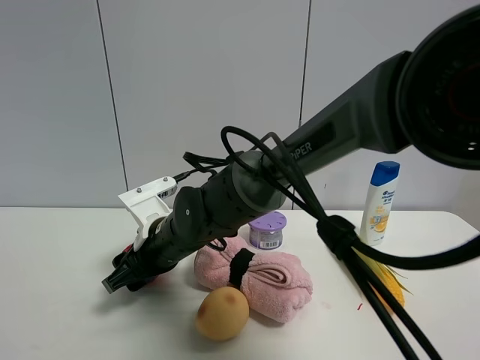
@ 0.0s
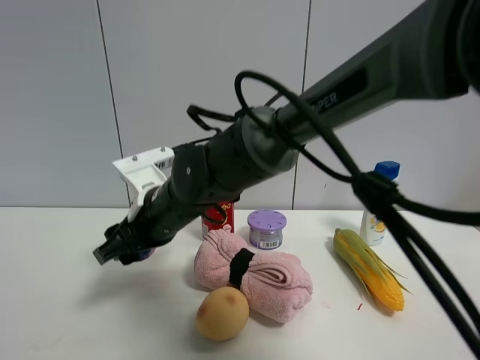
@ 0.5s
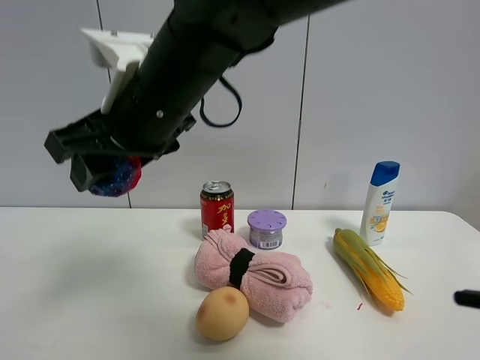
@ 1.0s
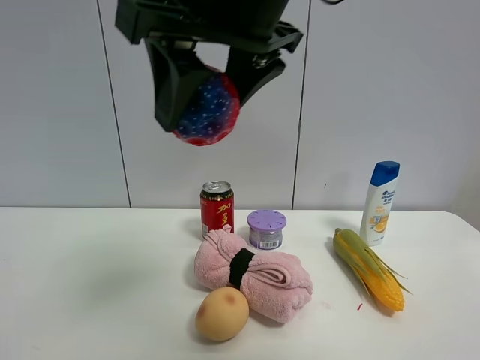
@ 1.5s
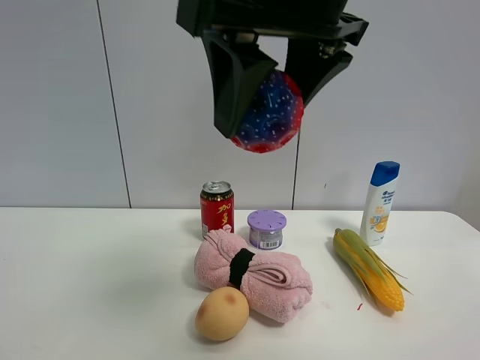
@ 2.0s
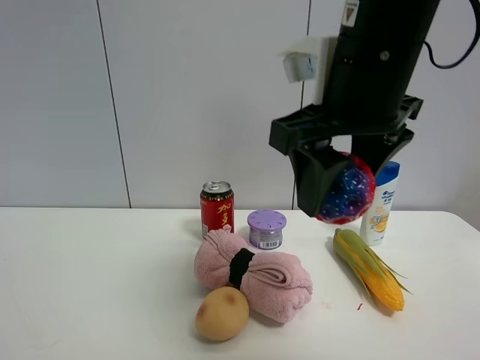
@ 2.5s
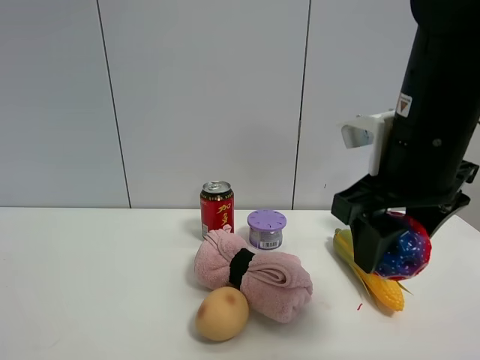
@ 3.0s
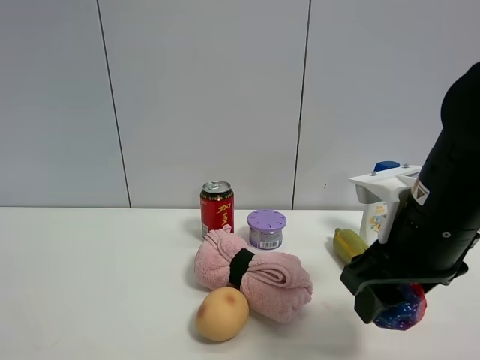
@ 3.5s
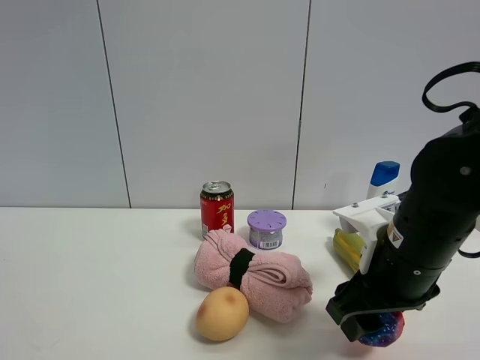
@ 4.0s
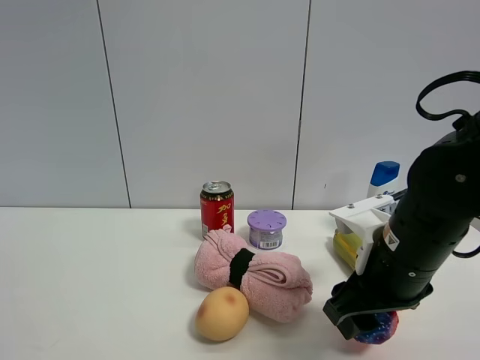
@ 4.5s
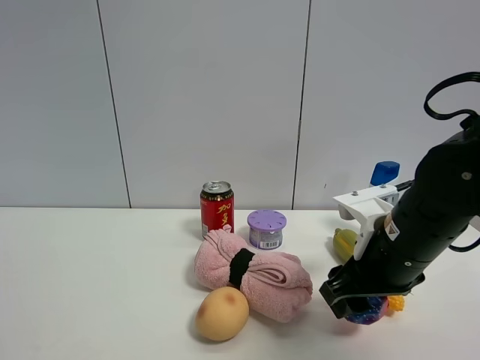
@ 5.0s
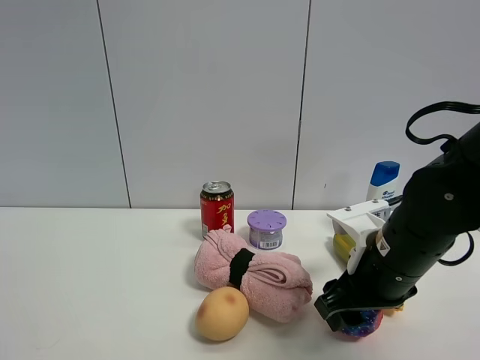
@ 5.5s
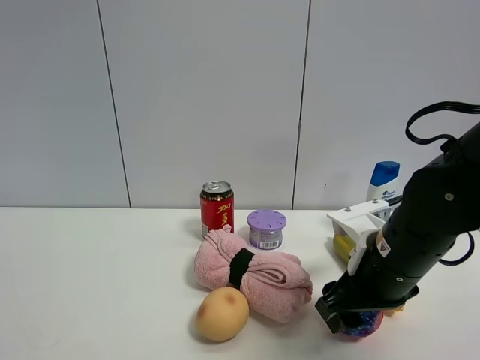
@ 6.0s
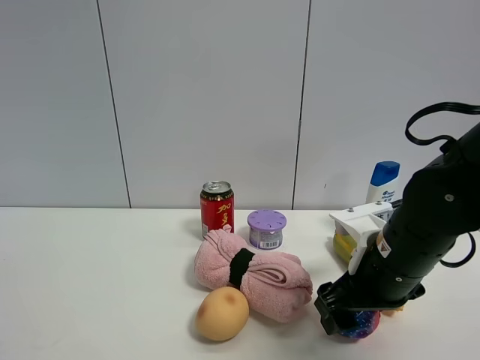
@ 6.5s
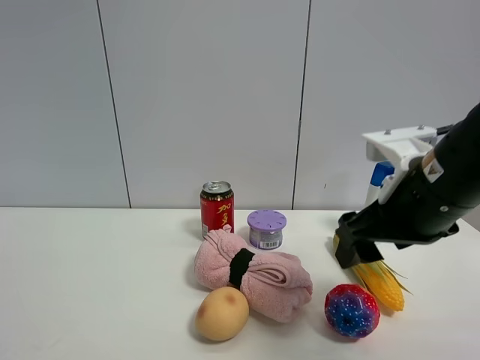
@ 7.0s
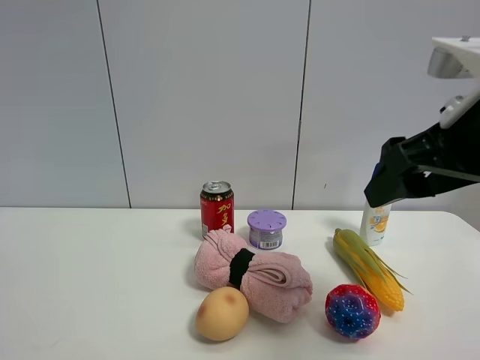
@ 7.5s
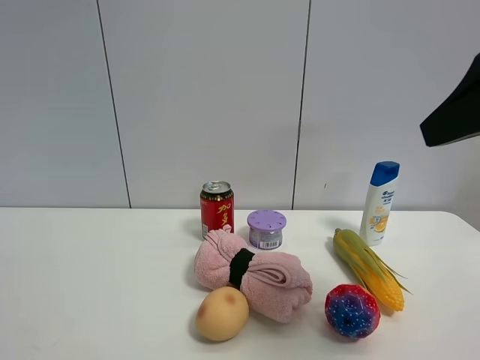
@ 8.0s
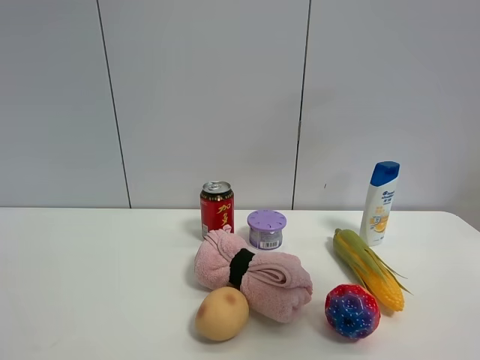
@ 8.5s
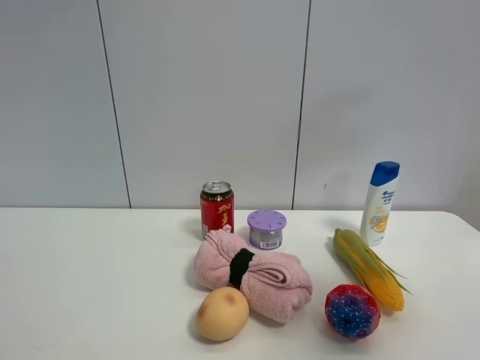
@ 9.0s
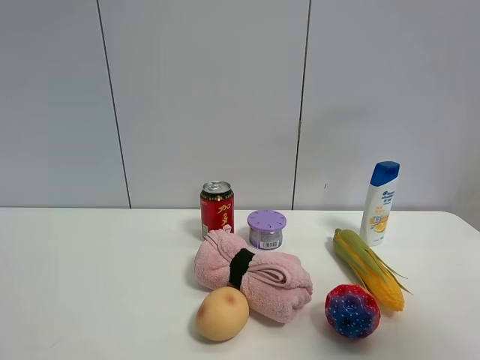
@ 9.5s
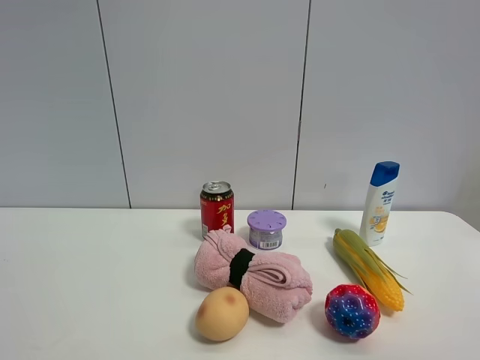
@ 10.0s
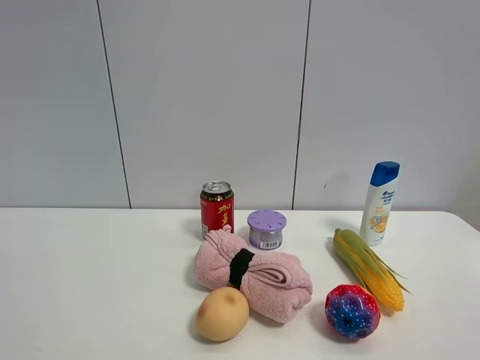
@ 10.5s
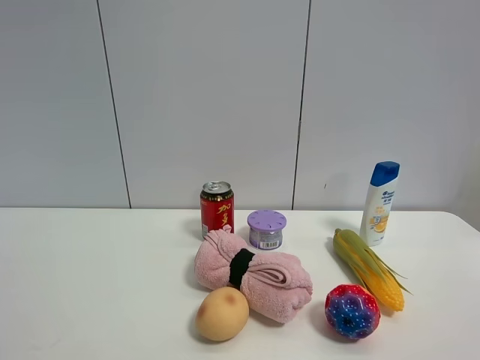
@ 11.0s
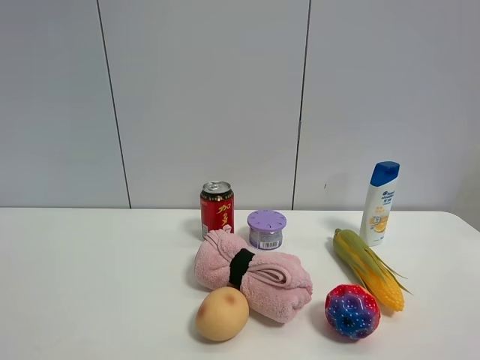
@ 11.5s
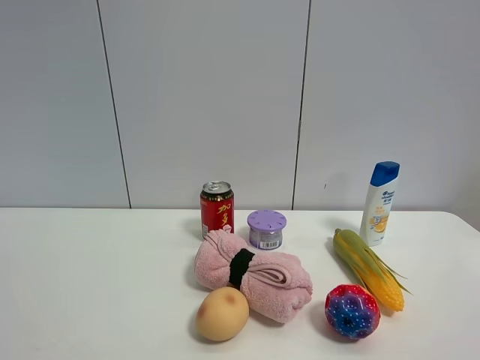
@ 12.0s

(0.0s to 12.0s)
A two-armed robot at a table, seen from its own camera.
Task of the whole recording: the gripper move the object.
Step, 0.5s - 7.0s: Place the colorful ball on the table with the right gripper.
0.0s - 2.0s: The right gripper travels upward, to the right and backward by roughly 35 cm.
2.0s - 4.0s: The right gripper goes some 25 cm downward and to the right.
4.0s - 6.0s: The grippers stay close to where they were, moving slightly.
6.0s - 8.0s: The right gripper shifts roughly 25 cm upward and backward.
8.0s - 10.0s: The right gripper travels backward and to the right by some 15 cm.

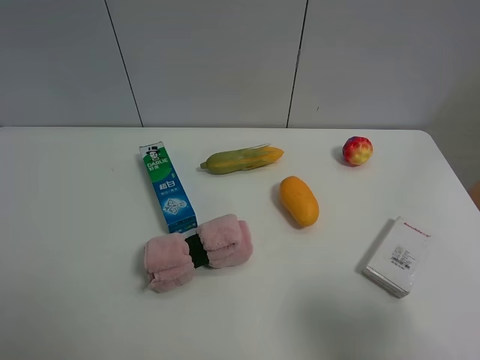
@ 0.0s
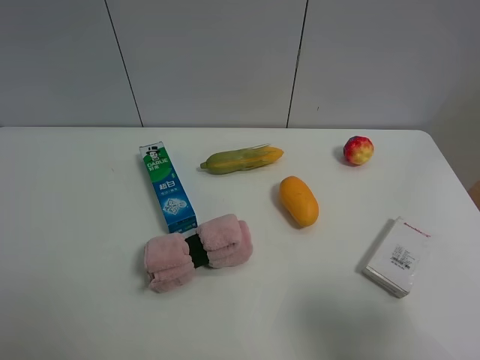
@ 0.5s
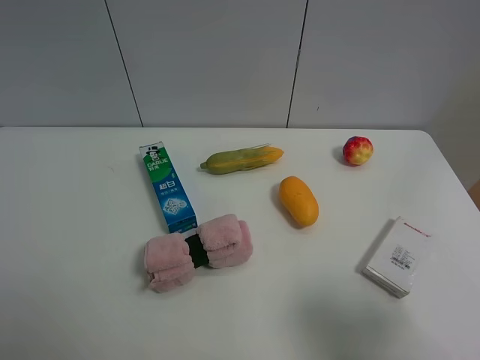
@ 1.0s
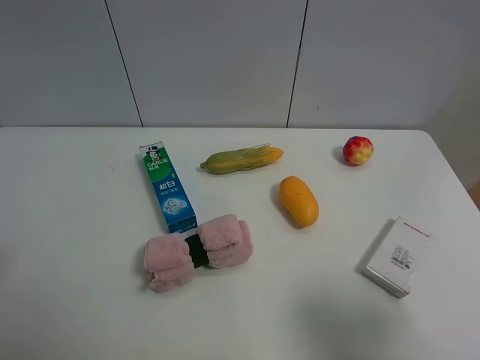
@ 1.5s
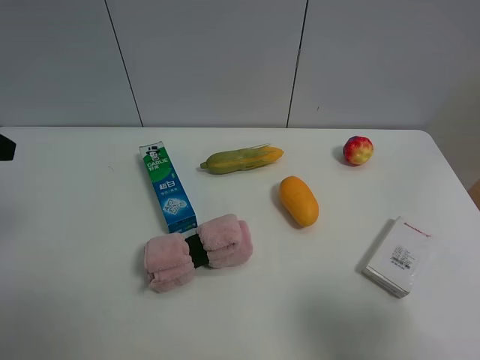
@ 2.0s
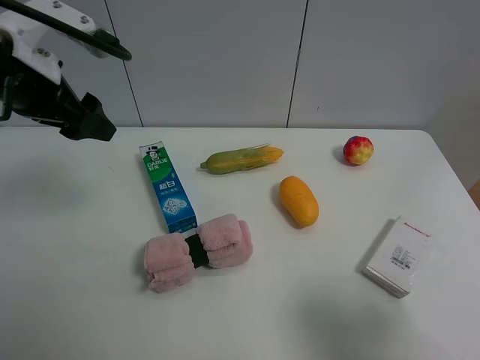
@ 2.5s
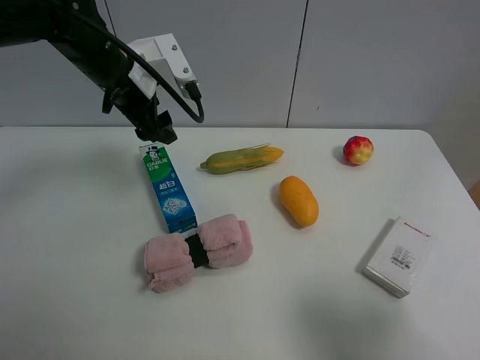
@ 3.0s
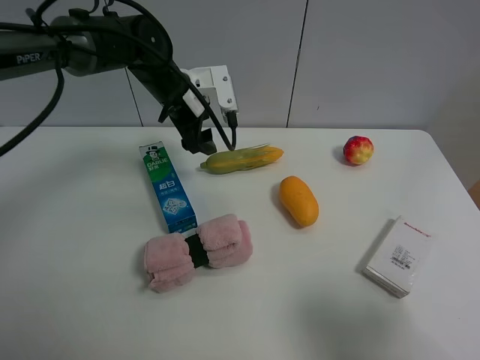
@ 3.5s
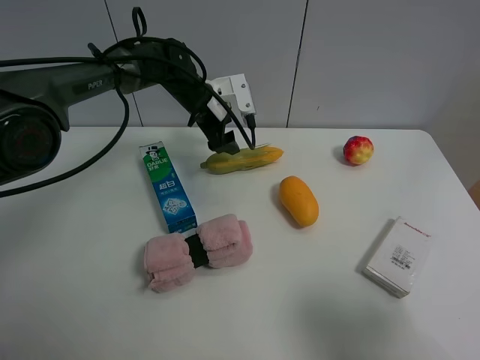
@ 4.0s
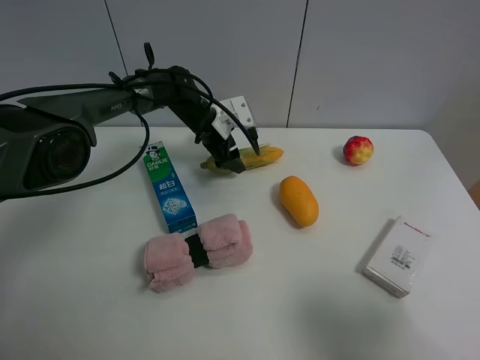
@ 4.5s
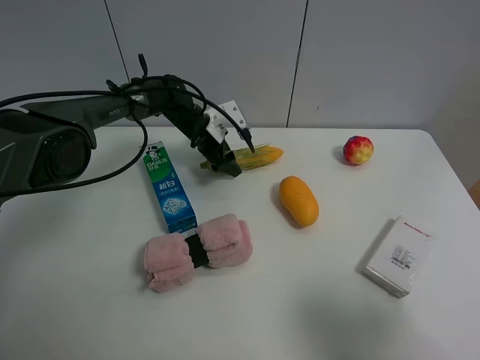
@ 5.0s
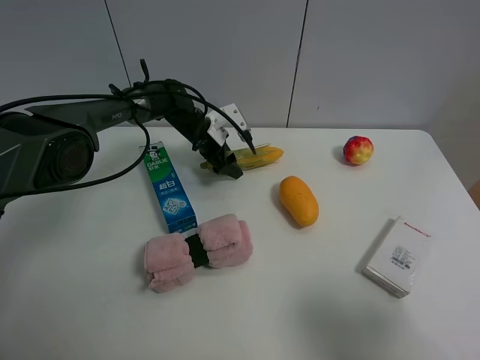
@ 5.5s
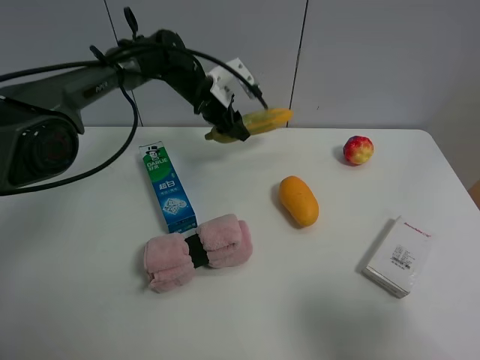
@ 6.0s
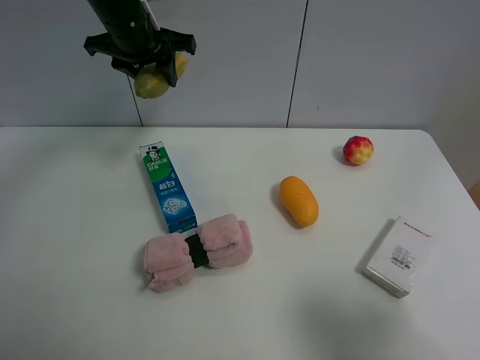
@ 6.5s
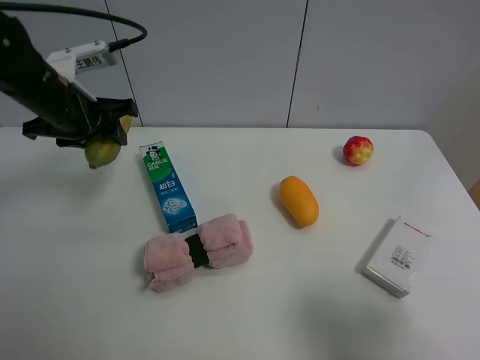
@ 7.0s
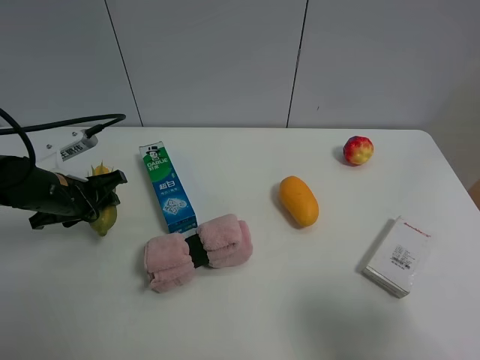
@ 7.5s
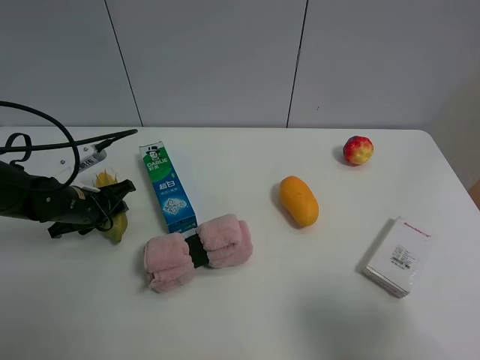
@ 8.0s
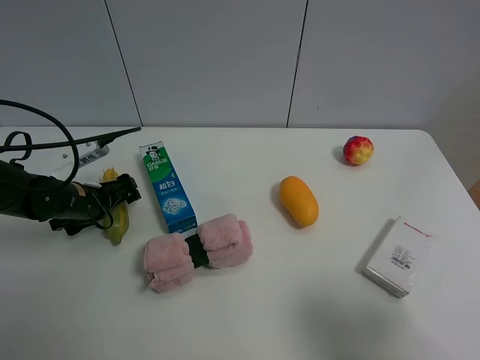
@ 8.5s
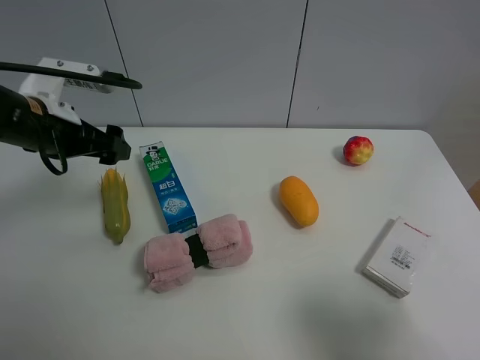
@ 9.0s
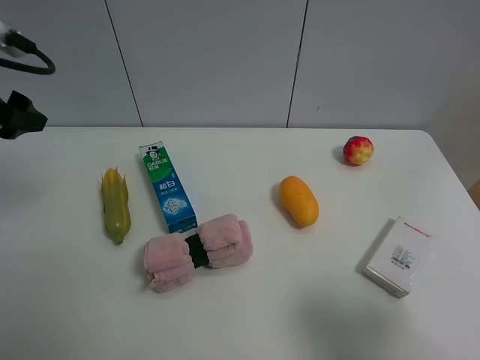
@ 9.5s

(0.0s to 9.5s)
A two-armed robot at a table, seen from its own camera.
Task of the whole recording: the gripper move the object.
Step, 0.0s - 5.5s: Grasp the corn with the left gripper.
Step, 6.0s - 8.0s: Place the corn on the table with the left gripper.
2.0s - 4.0s: The left gripper shifts about 40 cm forward, to the right and downward.
4.0s - 5.5s: The left gripper goes roughly 10 cm downward.
5.5s - 7.5s: The left gripper is displaced backward and to the left by roughly 30 cm, travels upward and back again, about 25 cm each way, and closes up.
7.5s - 9.5s: The left gripper is displaced upward by roughly 20 cm, and opens its fingers.

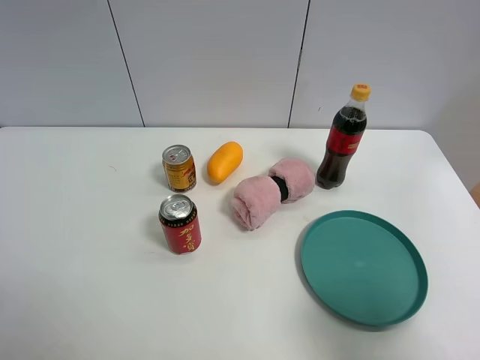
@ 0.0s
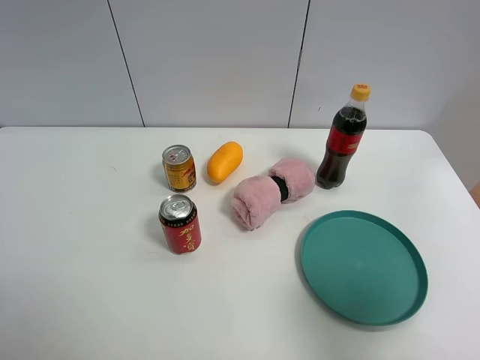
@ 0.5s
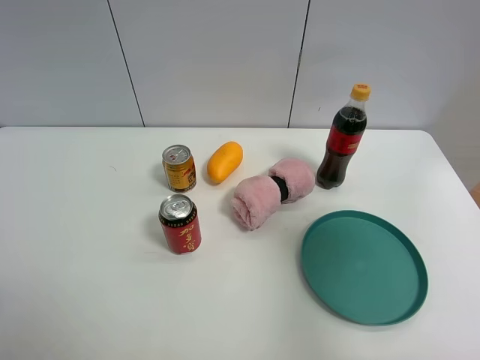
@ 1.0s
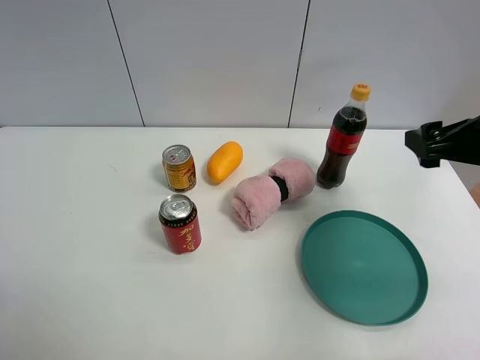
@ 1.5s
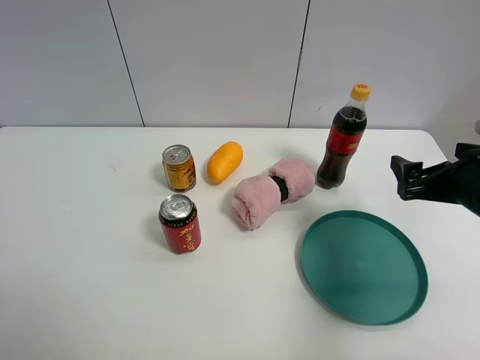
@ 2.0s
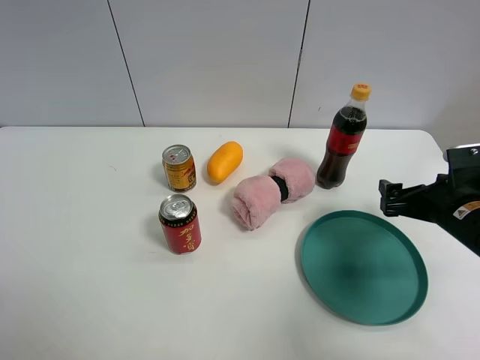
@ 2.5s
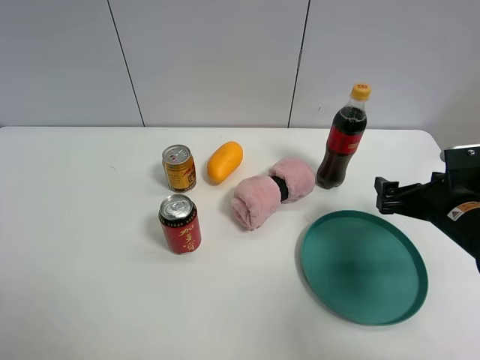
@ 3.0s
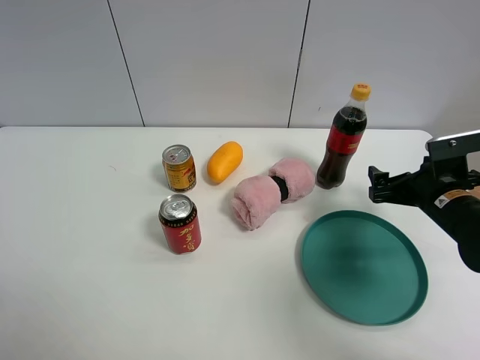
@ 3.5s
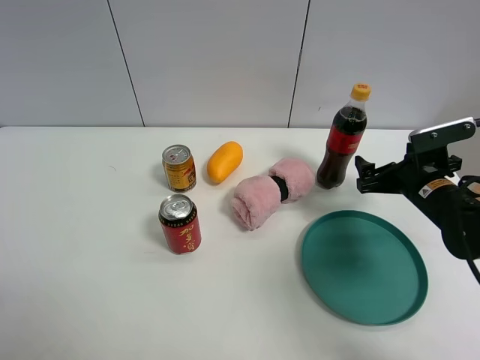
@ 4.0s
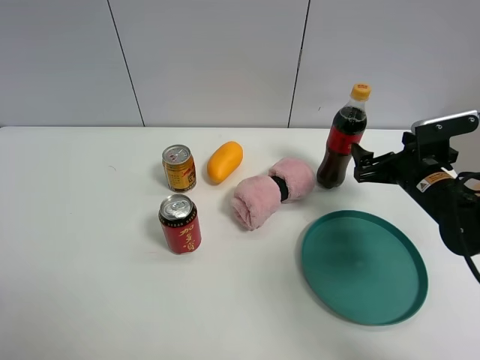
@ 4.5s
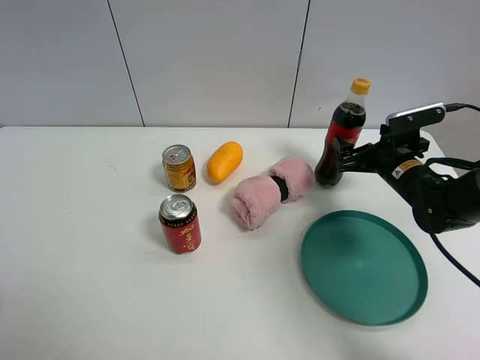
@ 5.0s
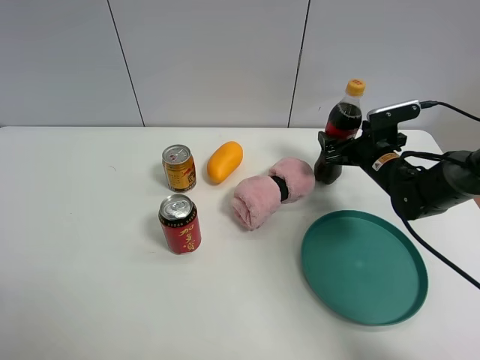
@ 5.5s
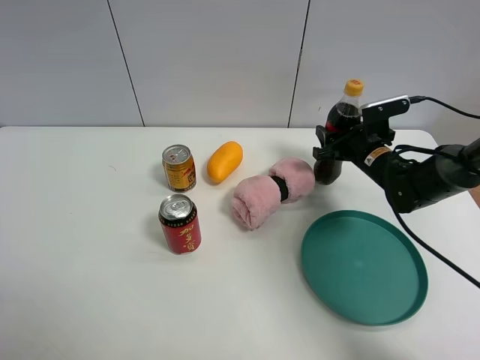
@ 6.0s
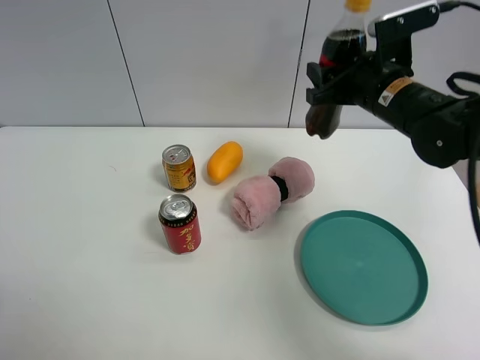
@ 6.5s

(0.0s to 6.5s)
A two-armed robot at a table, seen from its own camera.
Task of the whole recording: the gripper move the object.
Step, 0.0s - 6.0s: Grasp the coke with the right gripper.
0.0s - 2.0s: The right gripper moves forward, some 20 cm.
2.0s - 4.5s: The right gripper goes some 10 cm forward and downward.
4.5s - 6.5s: The right gripper heads upward and to the left, covering about 15 cm, and closes its fingers.
